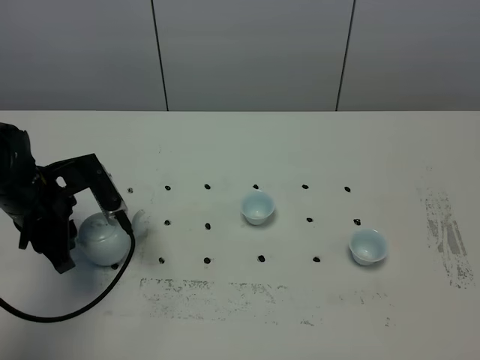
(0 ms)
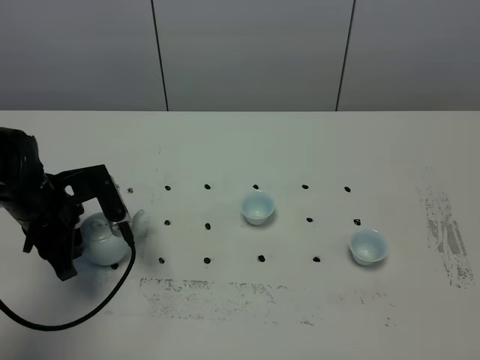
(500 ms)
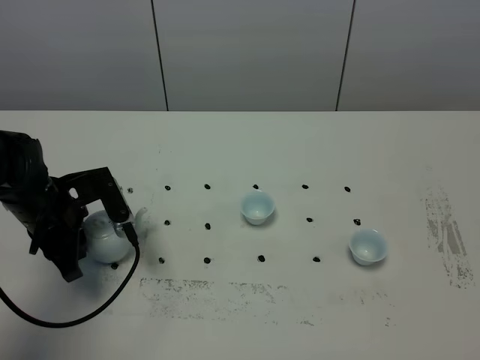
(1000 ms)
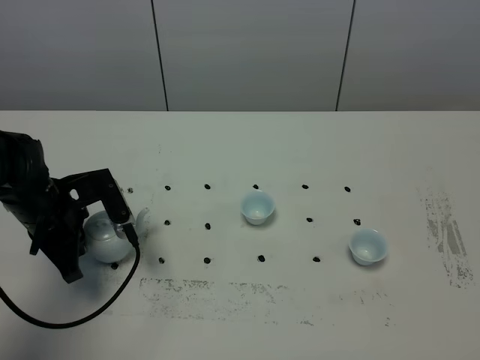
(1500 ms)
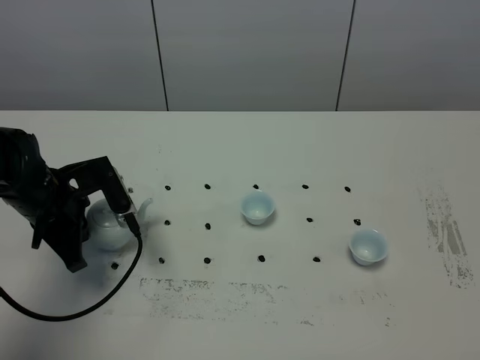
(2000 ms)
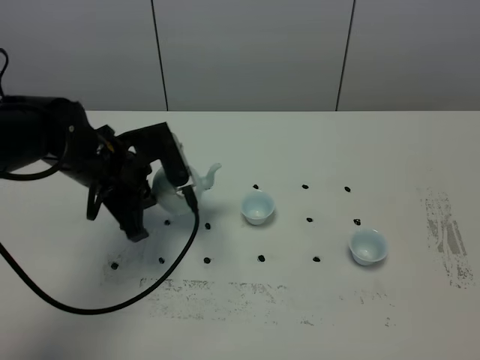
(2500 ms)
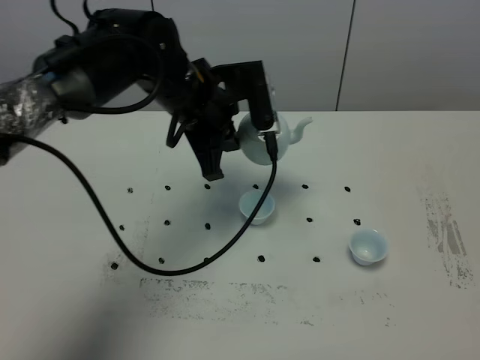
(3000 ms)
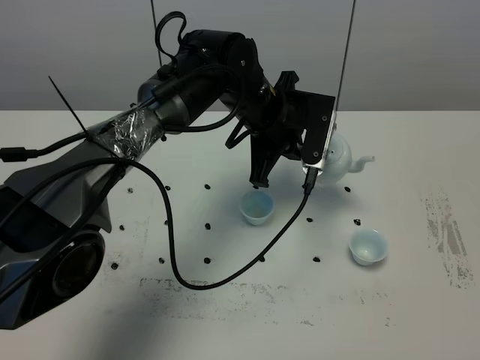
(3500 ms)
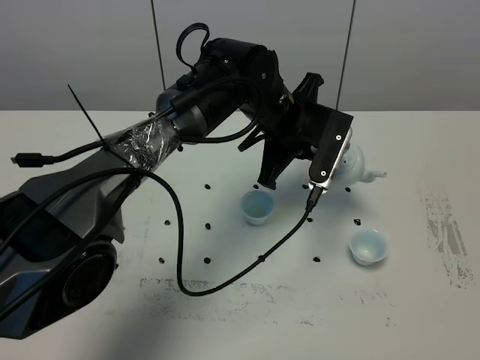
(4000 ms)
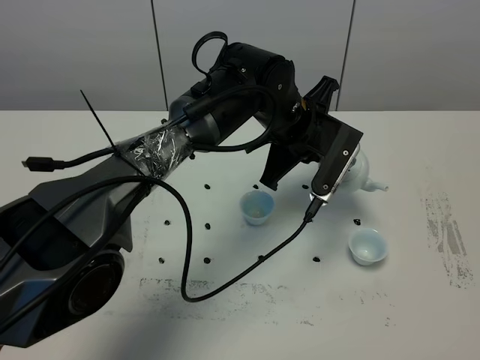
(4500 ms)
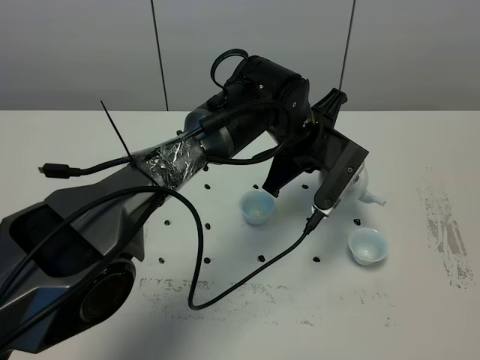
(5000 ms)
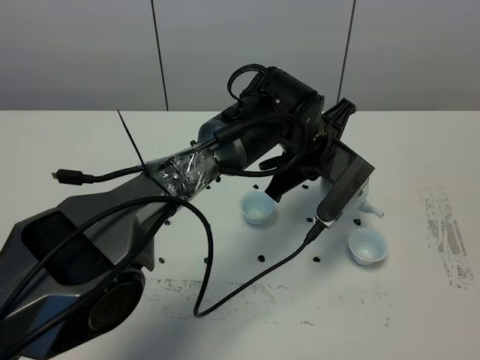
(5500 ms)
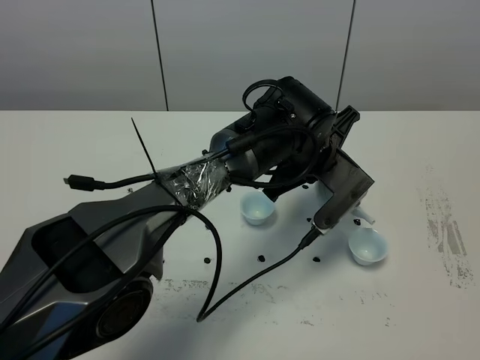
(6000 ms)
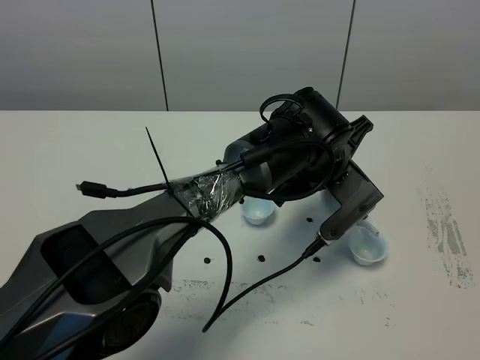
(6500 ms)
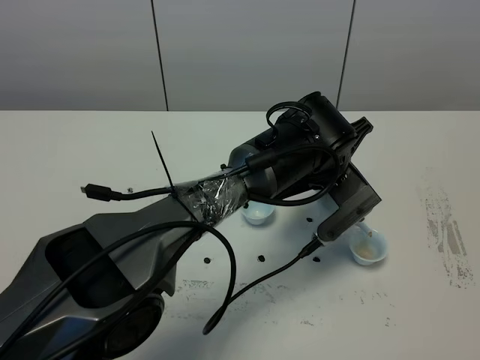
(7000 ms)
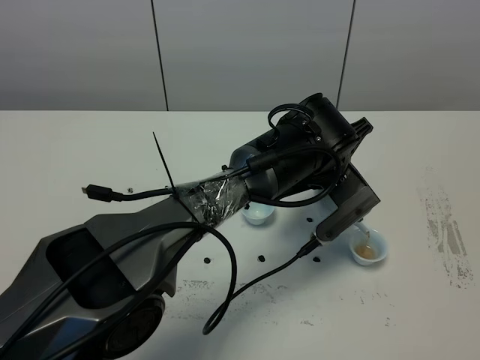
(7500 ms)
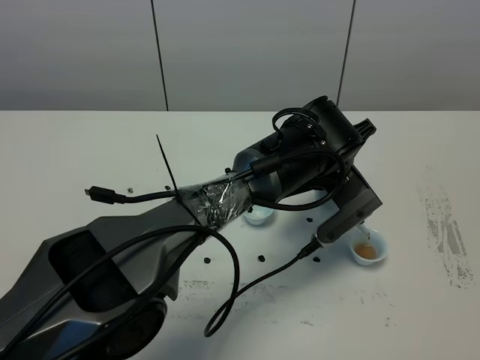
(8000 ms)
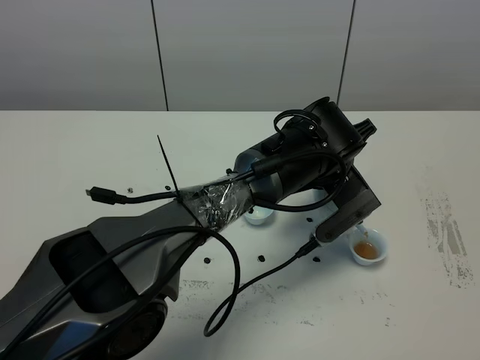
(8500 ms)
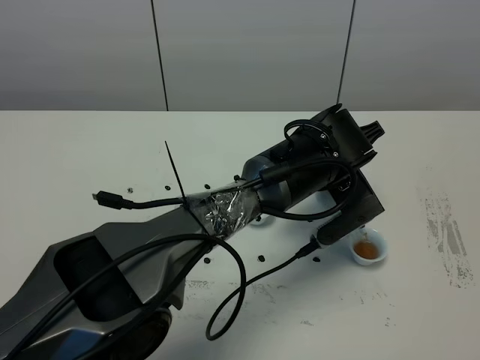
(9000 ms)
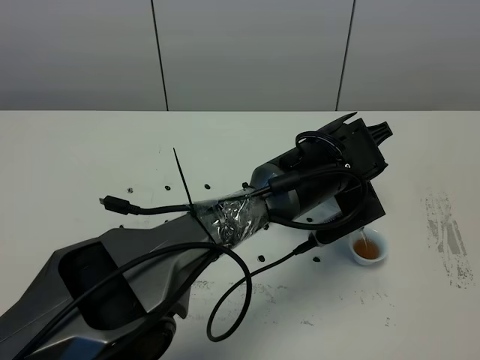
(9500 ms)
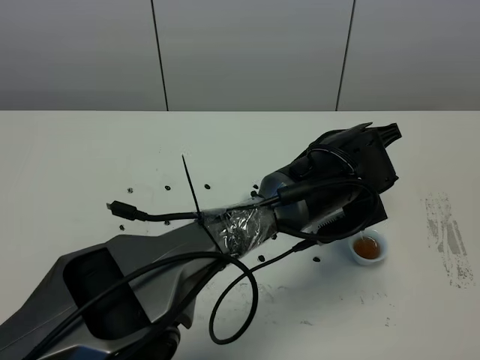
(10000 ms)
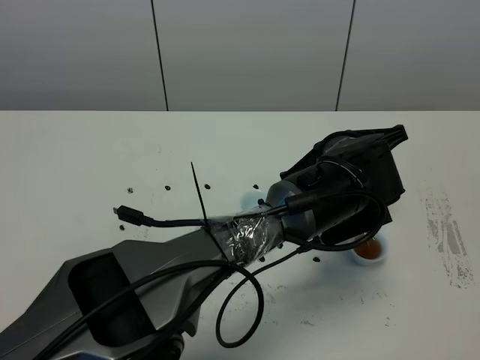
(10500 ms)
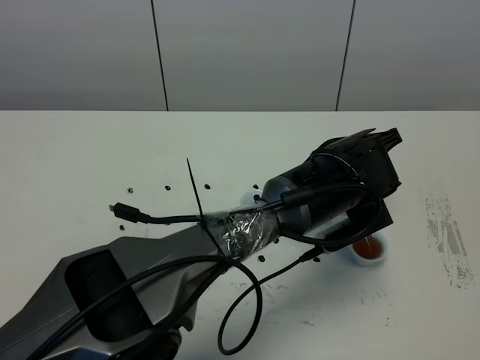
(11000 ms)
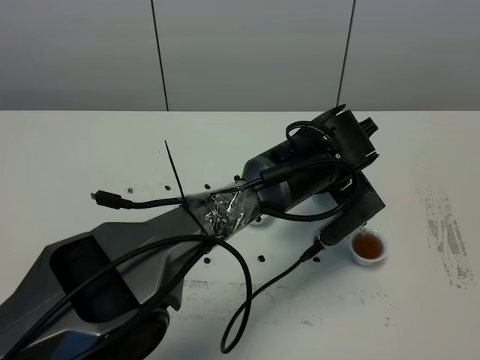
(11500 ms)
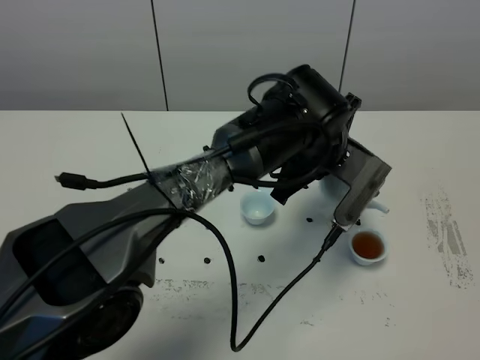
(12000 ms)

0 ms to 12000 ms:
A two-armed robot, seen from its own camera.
Task of the whole recording: grasp the blue porcelain teapot and pour the tea into the two blue porcelain teacups one by one, put the blue porcelain teapot back in its original place.
Step, 0 ms to 2000 ms: Pick up the teapot with the left gripper.
0 ms to 2000 ms: The left gripper closes.
2000 ms to 4000 ms: The left gripper moves to the right, roughly 30 cm.
4000 ms to 6000 ms: The left gripper shifts by roughly 5 cm.
10000 ms to 12000 ms: The left gripper moves about 5 cm.

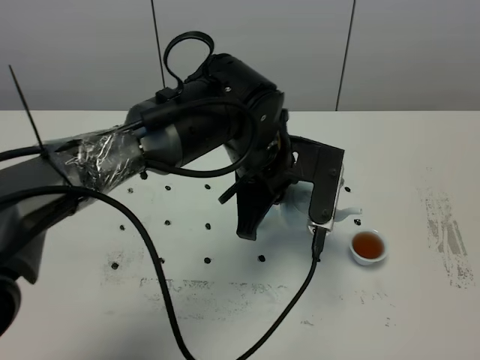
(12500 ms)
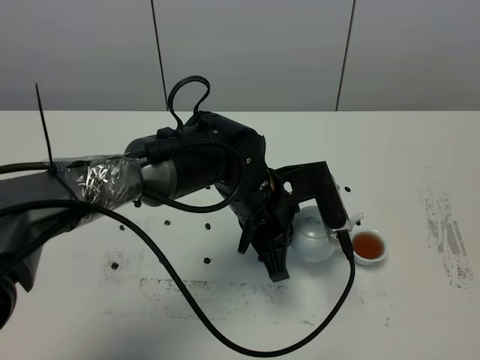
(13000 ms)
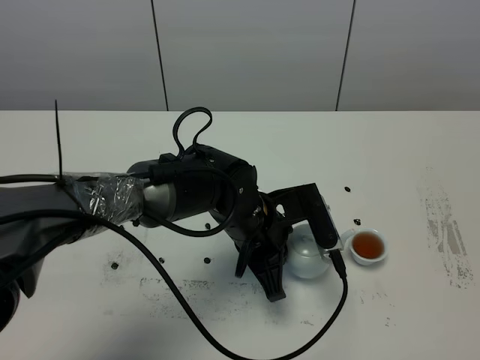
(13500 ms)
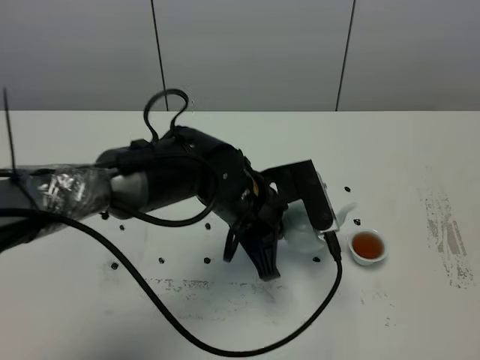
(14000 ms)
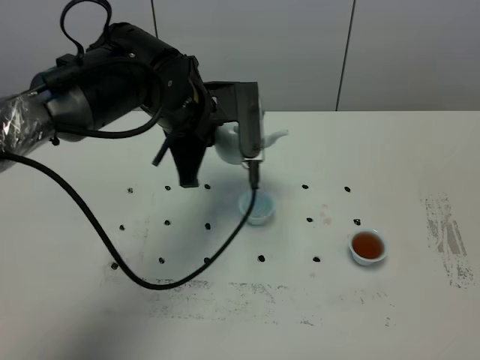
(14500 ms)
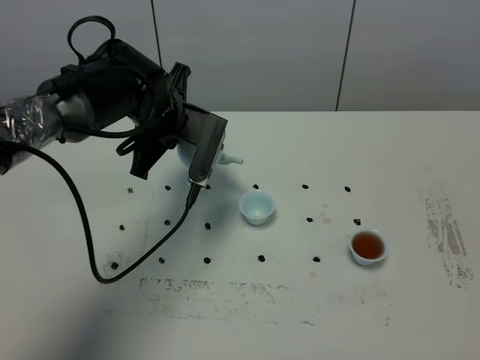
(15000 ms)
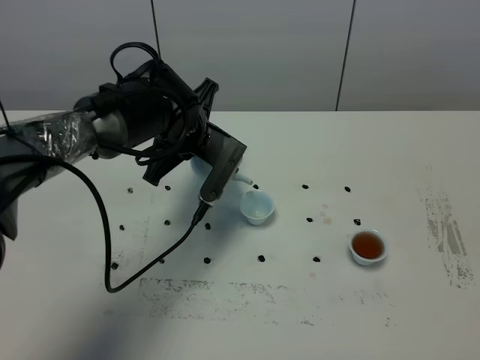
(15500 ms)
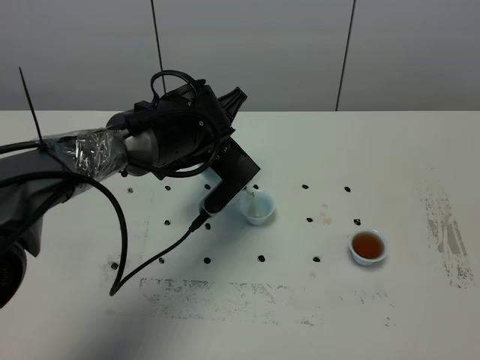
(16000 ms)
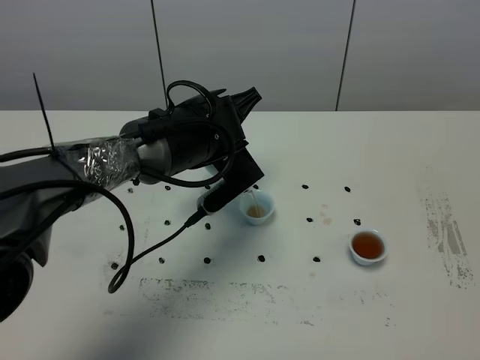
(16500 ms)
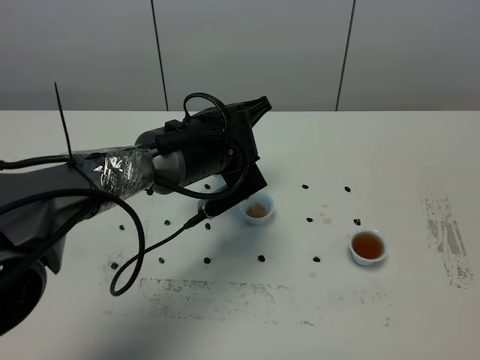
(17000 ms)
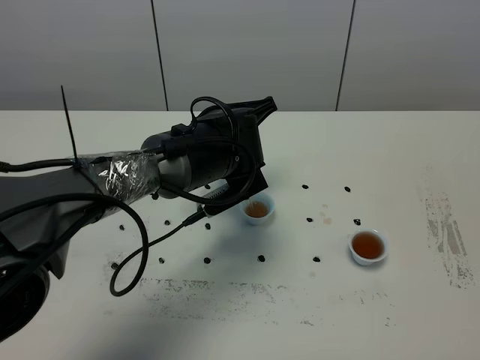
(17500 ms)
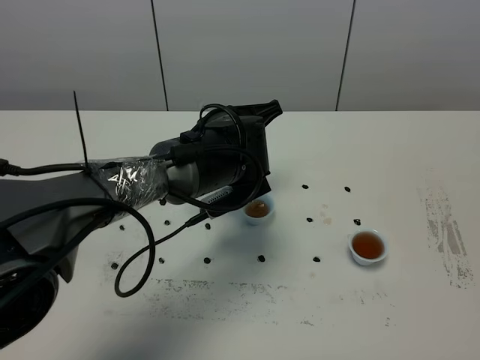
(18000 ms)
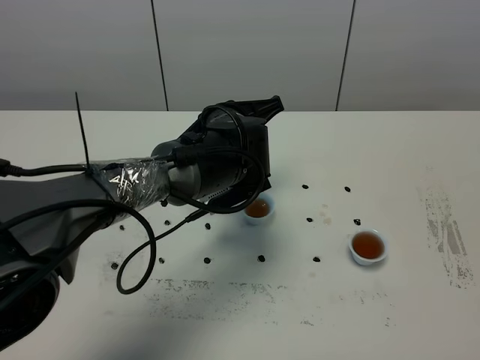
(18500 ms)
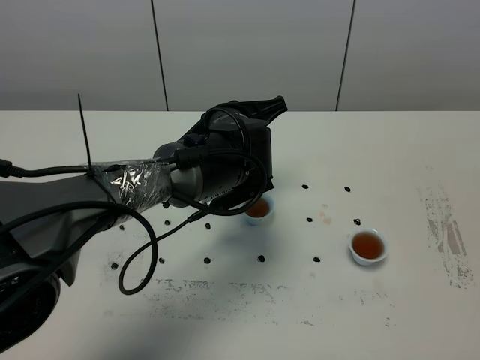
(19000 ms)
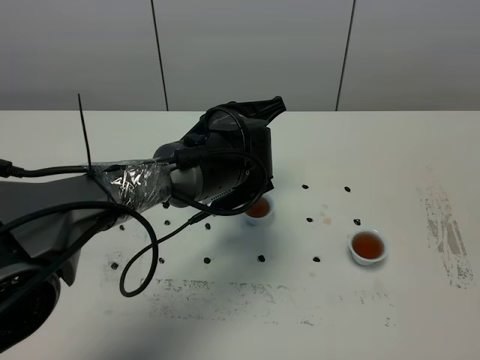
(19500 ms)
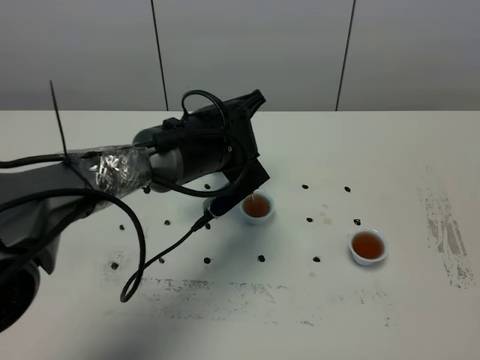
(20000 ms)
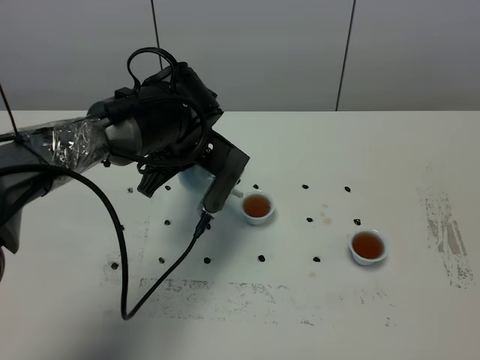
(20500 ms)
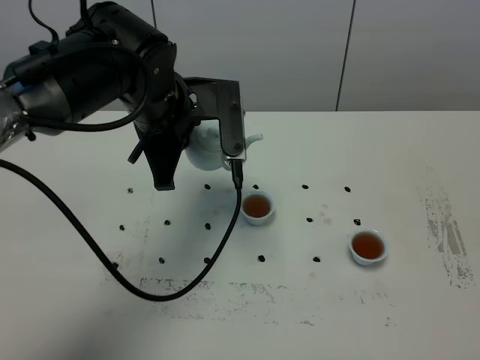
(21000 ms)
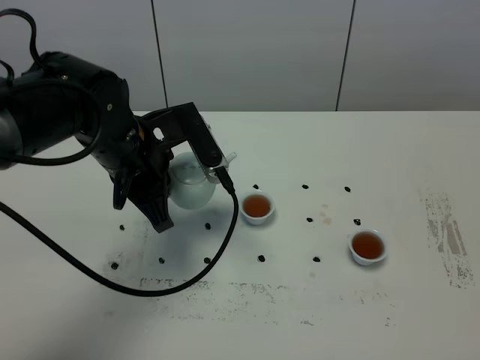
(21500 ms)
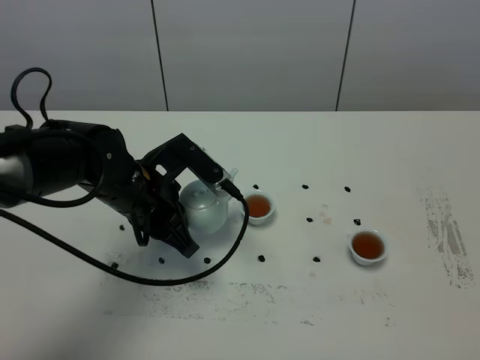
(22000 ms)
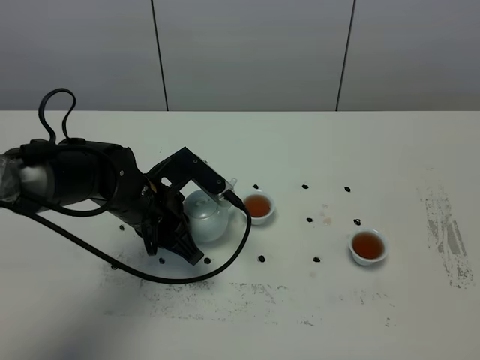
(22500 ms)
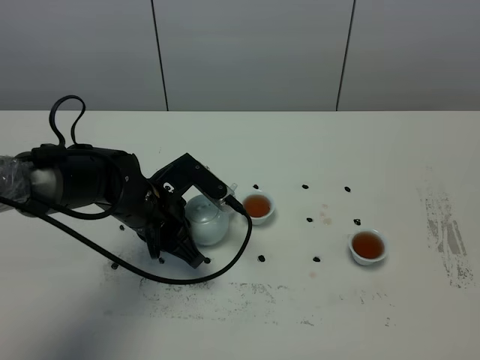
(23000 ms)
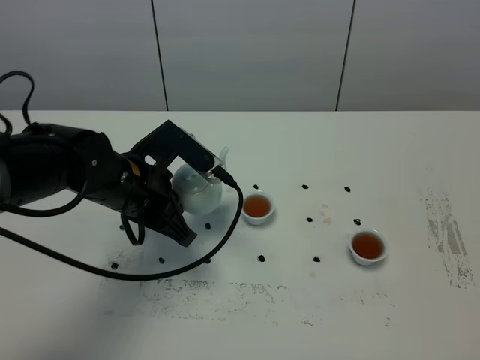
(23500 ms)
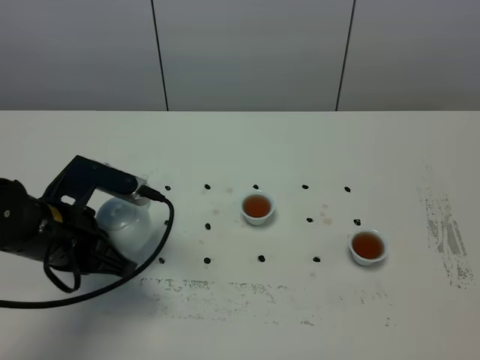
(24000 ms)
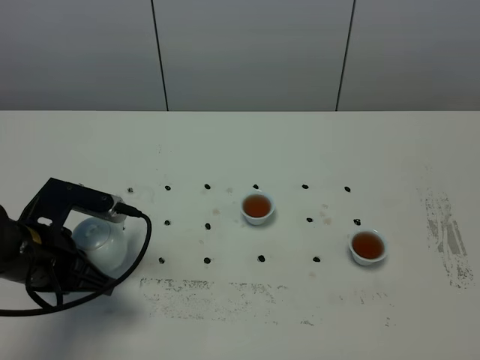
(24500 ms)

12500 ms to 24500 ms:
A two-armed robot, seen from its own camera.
Task of the whole recording: grasp the blue porcelain teapot and pour the tea into the two blue porcelain teacups one by one, put the blue porcelain teapot back in its original place.
Step, 12500 ms to 20000 ms: Pour tea into the teacup with the left gripper.
12500 ms to 14500 ms: The left gripper heads to the left and forward, covering roughly 10 cm, and reaches roughly 10 cm downward, then returns.
14500 ms to 16500 ms: The left gripper shifts approximately 5 cm downward.
16500 ms to 18500 ms: The grippers make only small movements.
18500 ms to 20500 ms: The left gripper moves to the left, some 5 cm.
20500 ms to 22500 ms: The left gripper is displaced downward, to the left and backward by some 10 cm.
22500 ms to 24500 ms: The left gripper moves to the left and backward, roughly 15 cm.

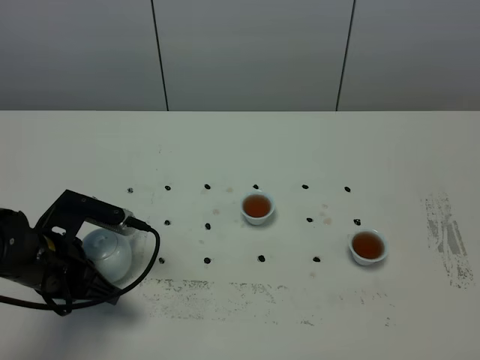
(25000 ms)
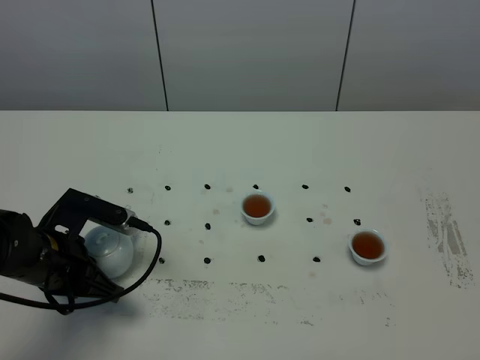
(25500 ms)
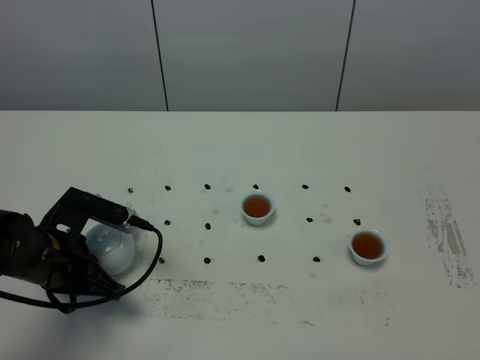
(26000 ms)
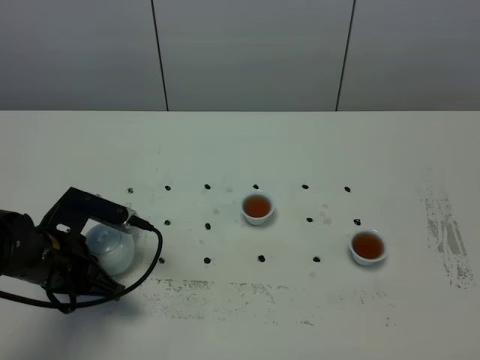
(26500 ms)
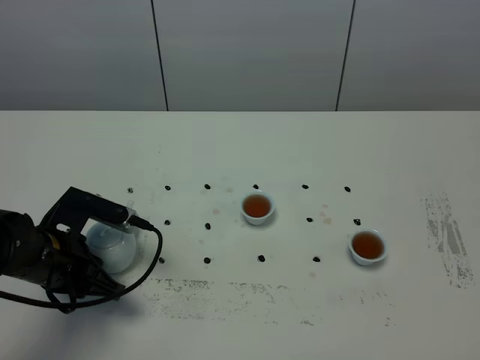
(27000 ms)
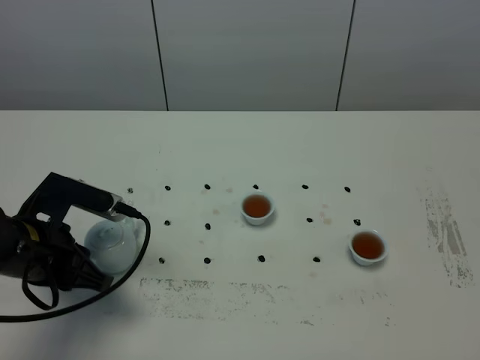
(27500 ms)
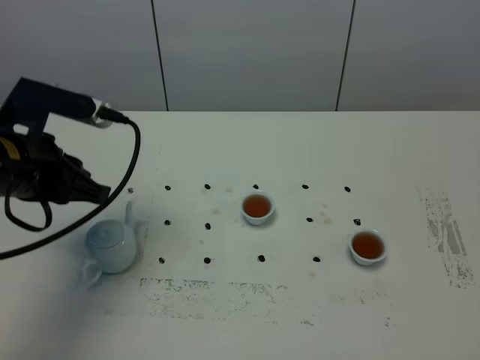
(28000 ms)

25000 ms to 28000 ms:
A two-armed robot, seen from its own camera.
Task of the whole recording: grasp the blue porcelain teapot and pour the tea into the two blue porcelain teacups one by one, put the blue porcelain teapot back in its original place.
25000 ms to 26500 ms: The two grippers keep their place.
26500 ms to 28000 ms: The left gripper travels upward by roughly 15 cm, and opens.
